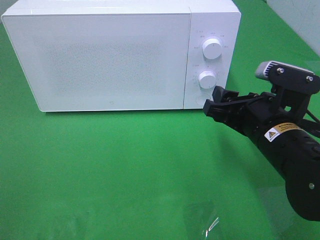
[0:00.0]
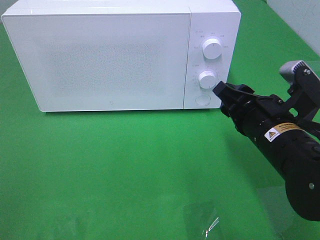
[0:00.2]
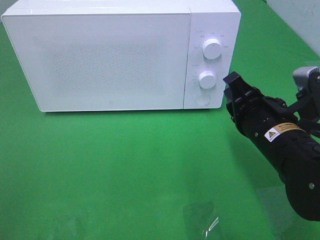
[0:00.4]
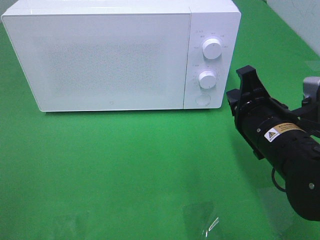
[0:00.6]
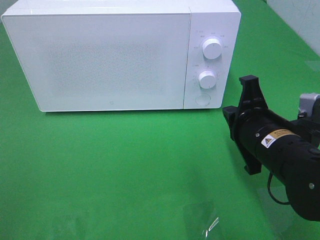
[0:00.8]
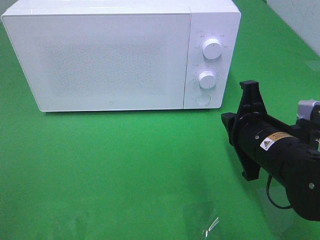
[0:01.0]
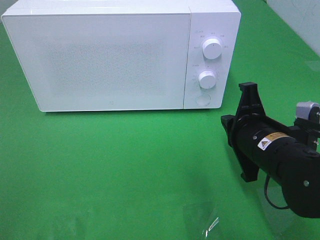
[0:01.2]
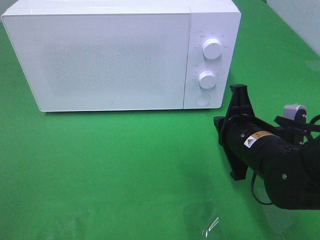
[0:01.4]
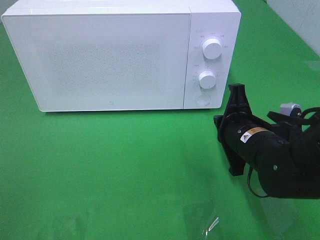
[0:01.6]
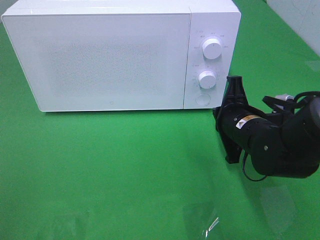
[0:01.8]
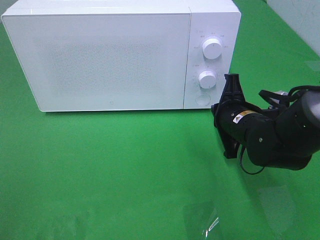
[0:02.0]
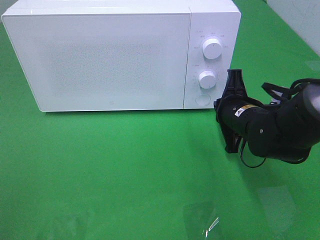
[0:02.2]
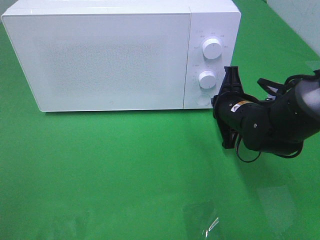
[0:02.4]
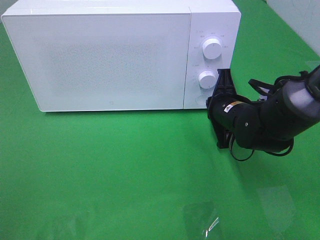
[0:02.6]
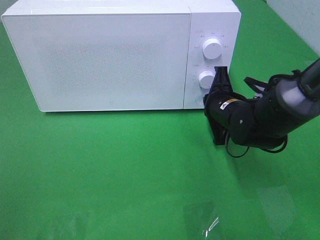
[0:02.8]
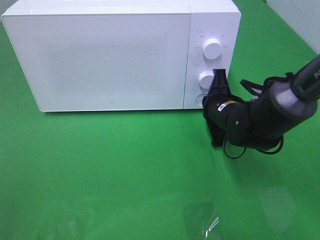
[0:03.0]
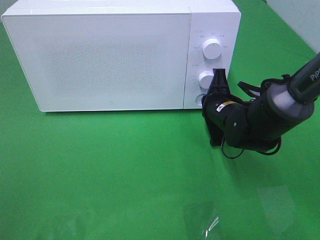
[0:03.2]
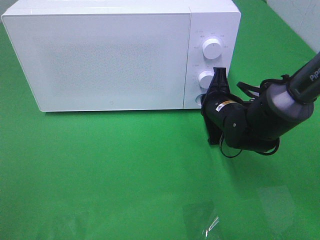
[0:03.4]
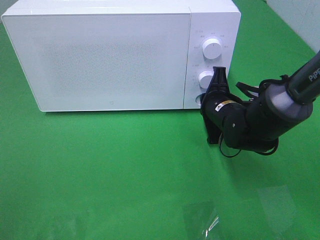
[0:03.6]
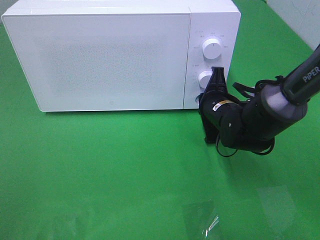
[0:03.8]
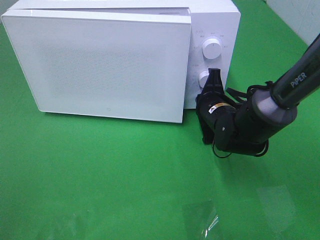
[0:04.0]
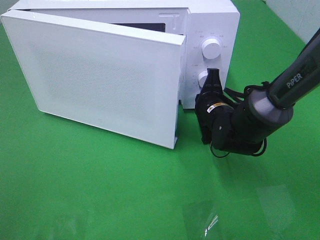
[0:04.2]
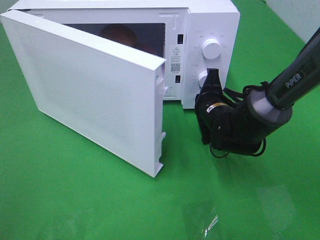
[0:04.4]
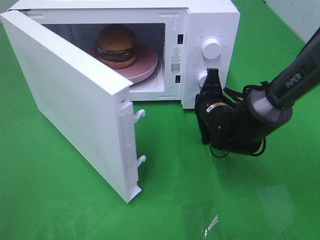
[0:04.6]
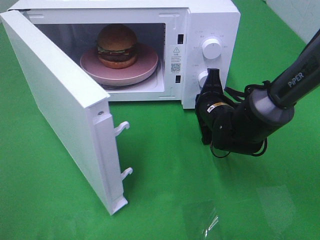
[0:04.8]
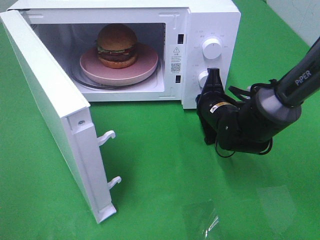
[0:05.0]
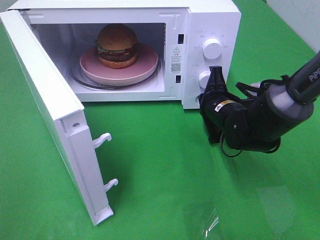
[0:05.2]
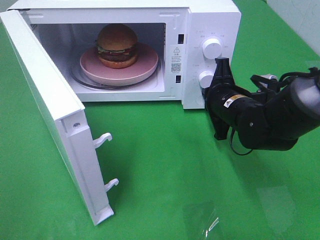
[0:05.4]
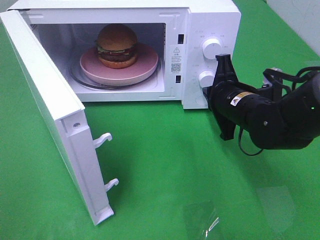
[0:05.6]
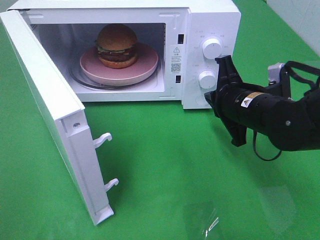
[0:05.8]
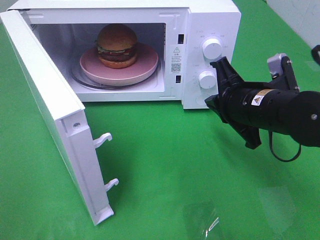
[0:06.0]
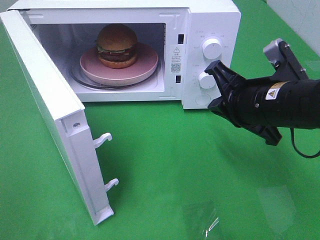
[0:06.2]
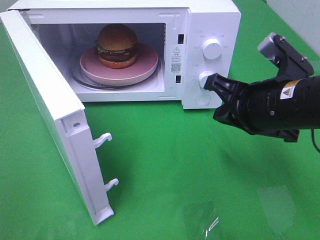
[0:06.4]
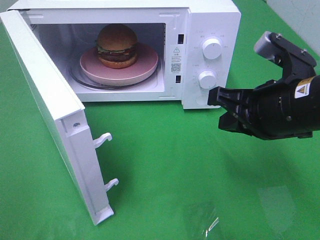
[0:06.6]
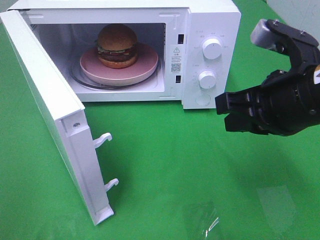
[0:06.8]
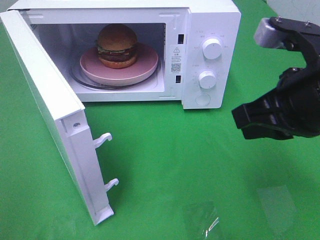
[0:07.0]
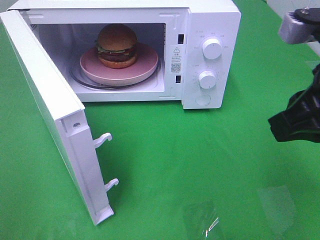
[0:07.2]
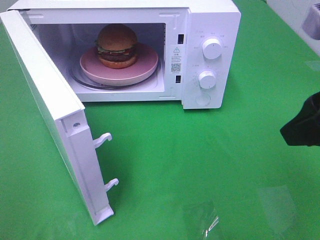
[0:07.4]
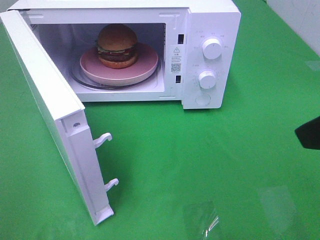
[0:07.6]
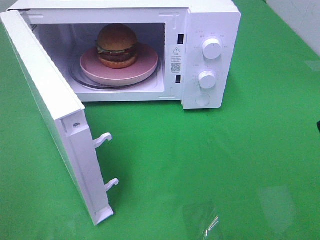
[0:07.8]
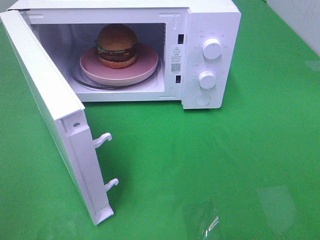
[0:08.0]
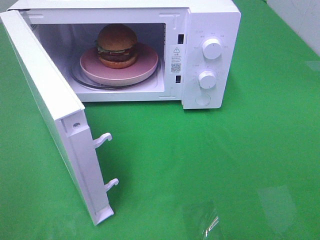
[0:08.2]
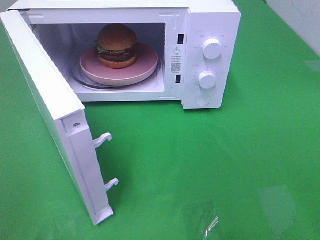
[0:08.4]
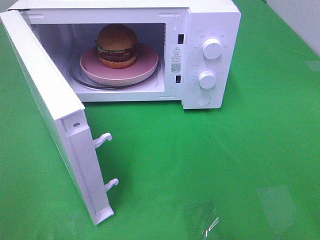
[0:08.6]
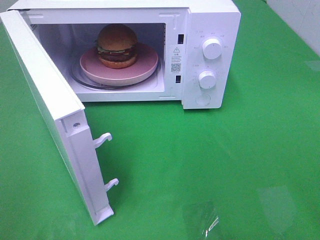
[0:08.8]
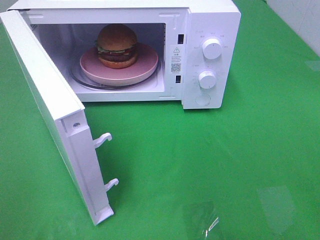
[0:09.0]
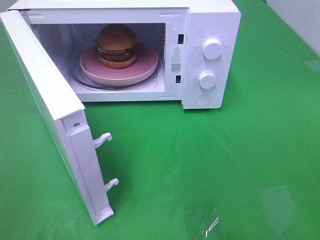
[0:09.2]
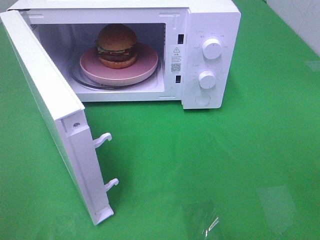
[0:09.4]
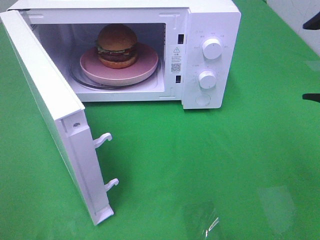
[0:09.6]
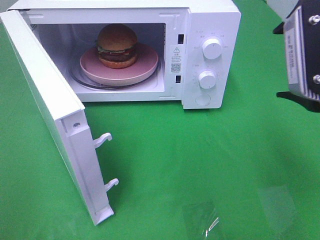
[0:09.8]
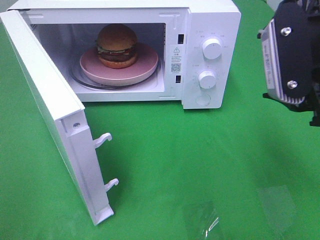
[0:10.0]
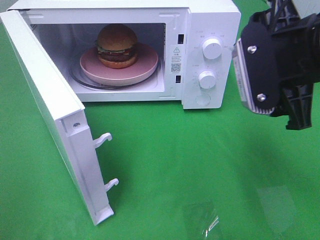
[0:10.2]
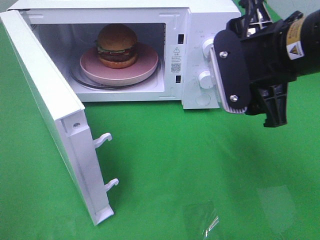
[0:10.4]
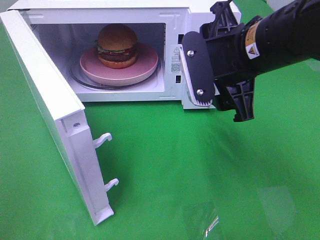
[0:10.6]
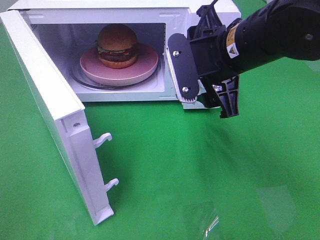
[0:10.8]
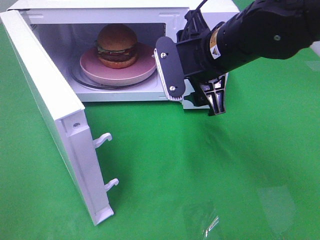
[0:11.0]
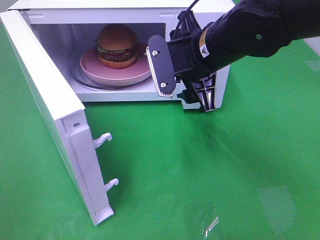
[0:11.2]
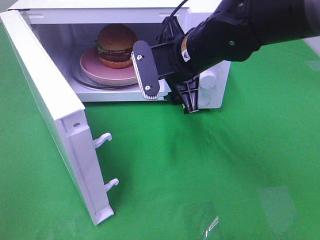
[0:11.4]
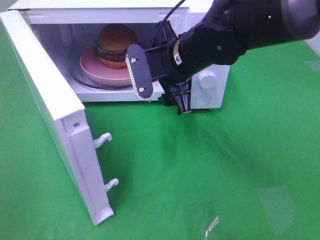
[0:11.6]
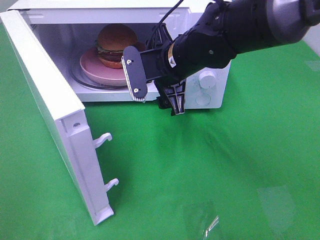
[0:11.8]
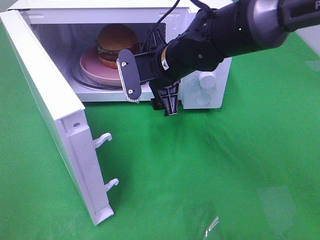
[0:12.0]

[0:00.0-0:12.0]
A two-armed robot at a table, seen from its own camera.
Task of the whole recording: Heat the burger.
Step, 0:00.0 to 0:05.2: Right hand: press the switch.
0:00.0 to 0:01.6: The right gripper changes place by some 5 cm, and closes its fingers.
0:01.6 to 0:03.0: The right gripper goes some 10 cm forward.
0:04.4 to 0:06.0: The right gripper goes some 15 cm upward and backward.
0:06.0 to 0:07.6: The right gripper travels upward, backward and to the right by roughly 25 cm, and opens its fingers.
0:09.0 to 0:10.4: The right gripper is displaced forward, to the left and downward by about 15 cm.
0:10.4 to 0:12.0: The right gripper is displaced forward, to the left and downward by some 20 cm.

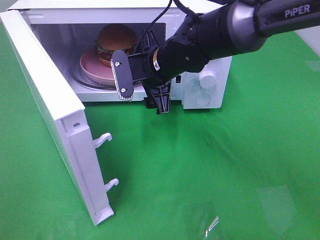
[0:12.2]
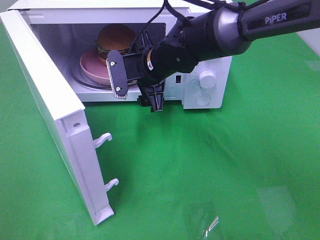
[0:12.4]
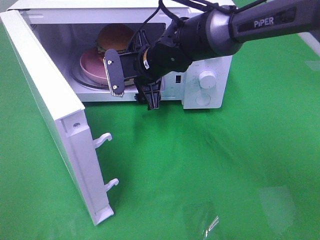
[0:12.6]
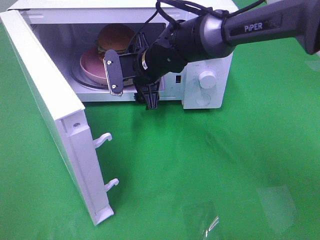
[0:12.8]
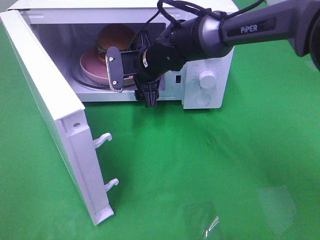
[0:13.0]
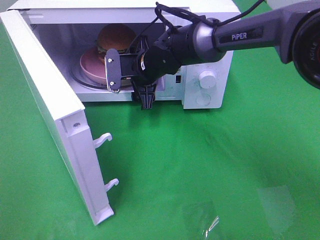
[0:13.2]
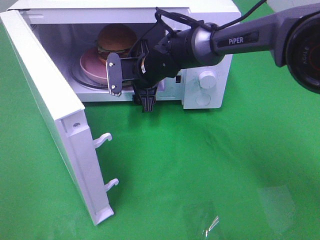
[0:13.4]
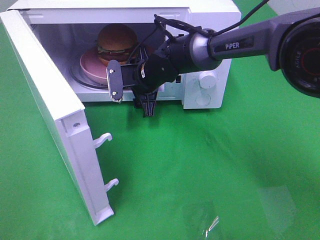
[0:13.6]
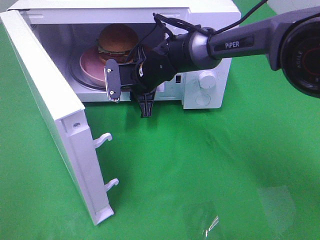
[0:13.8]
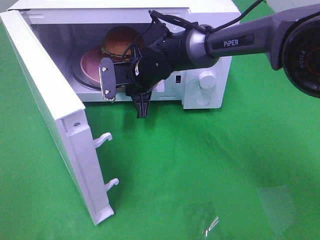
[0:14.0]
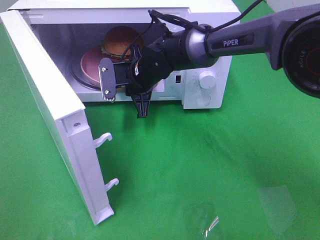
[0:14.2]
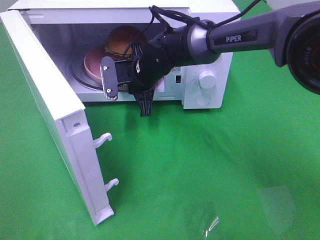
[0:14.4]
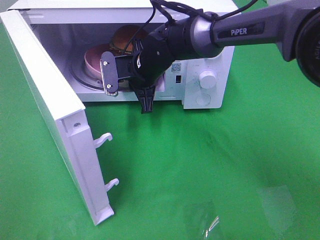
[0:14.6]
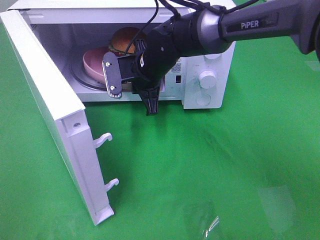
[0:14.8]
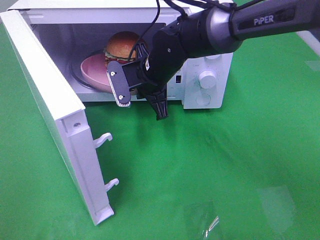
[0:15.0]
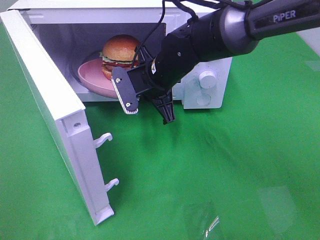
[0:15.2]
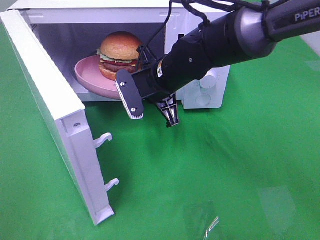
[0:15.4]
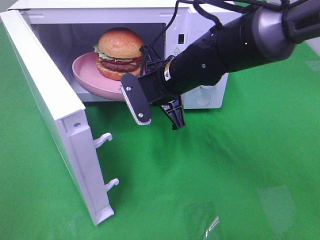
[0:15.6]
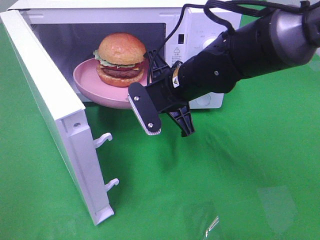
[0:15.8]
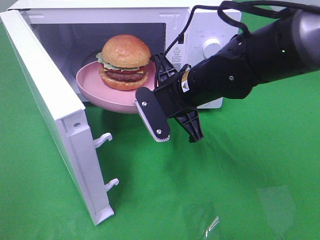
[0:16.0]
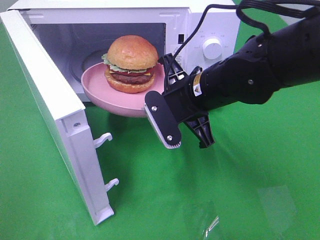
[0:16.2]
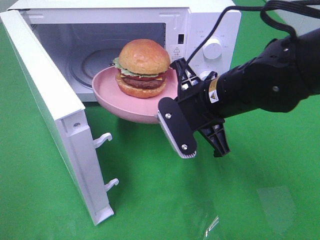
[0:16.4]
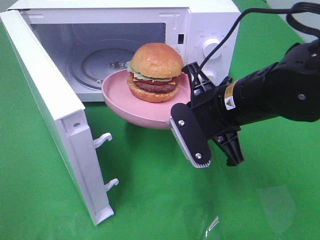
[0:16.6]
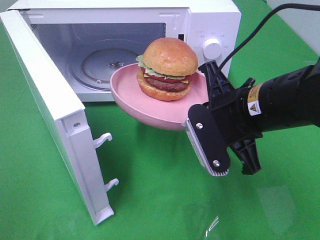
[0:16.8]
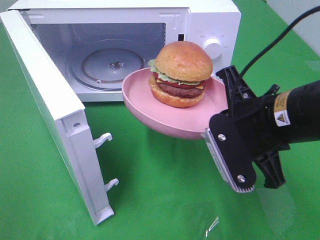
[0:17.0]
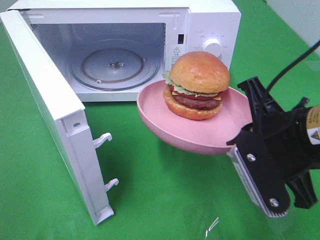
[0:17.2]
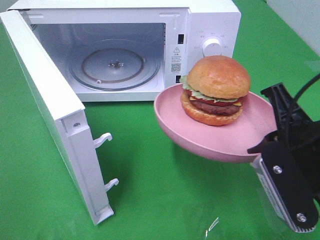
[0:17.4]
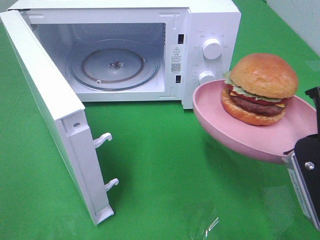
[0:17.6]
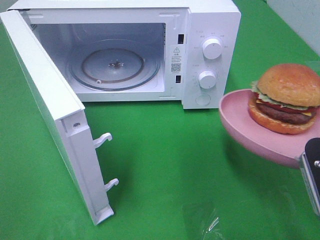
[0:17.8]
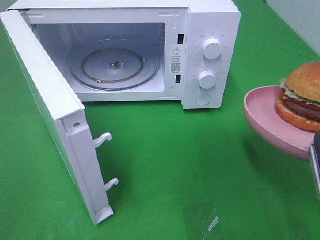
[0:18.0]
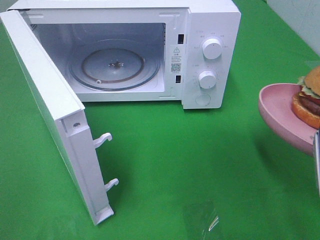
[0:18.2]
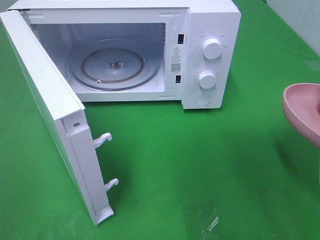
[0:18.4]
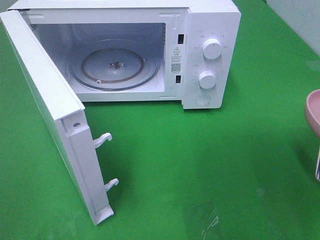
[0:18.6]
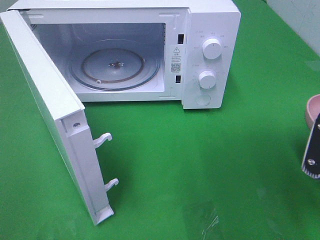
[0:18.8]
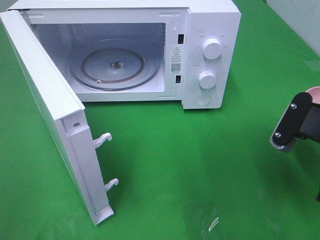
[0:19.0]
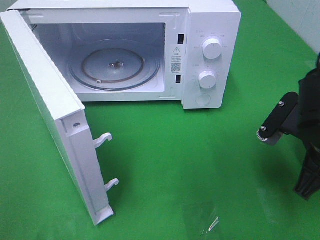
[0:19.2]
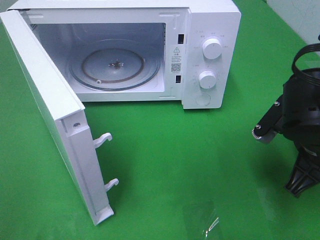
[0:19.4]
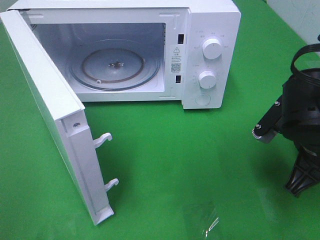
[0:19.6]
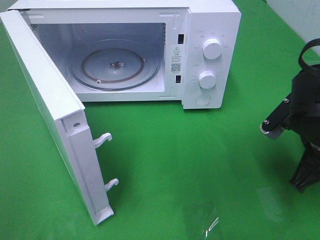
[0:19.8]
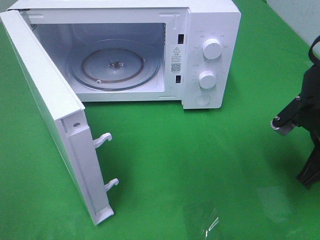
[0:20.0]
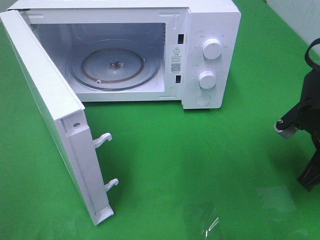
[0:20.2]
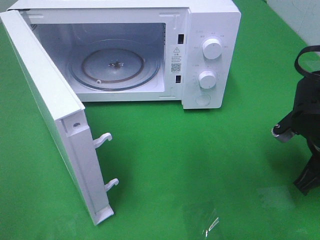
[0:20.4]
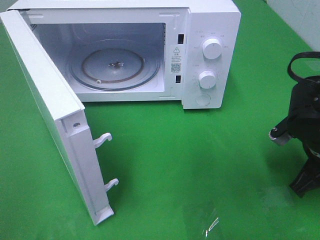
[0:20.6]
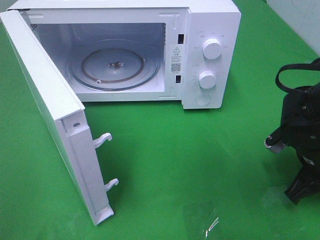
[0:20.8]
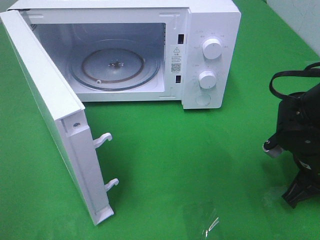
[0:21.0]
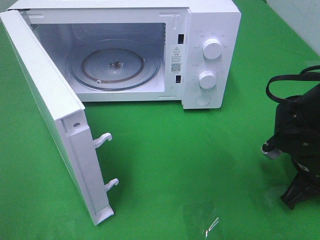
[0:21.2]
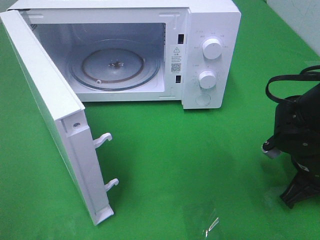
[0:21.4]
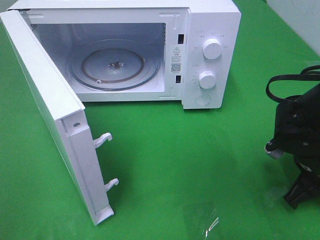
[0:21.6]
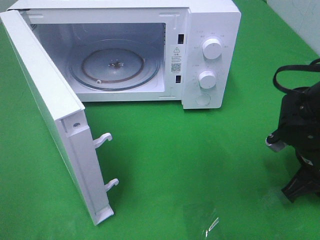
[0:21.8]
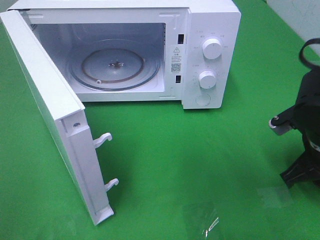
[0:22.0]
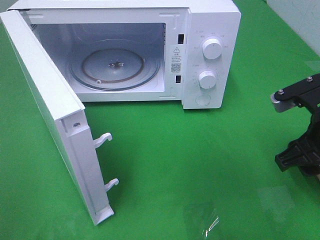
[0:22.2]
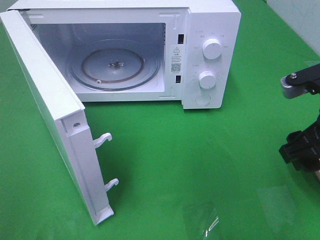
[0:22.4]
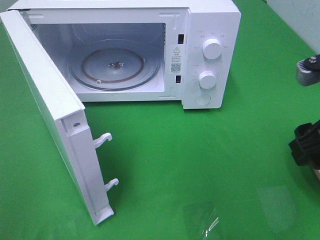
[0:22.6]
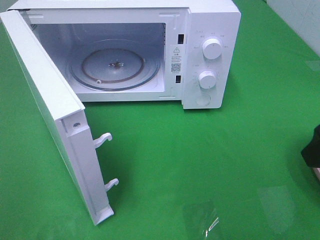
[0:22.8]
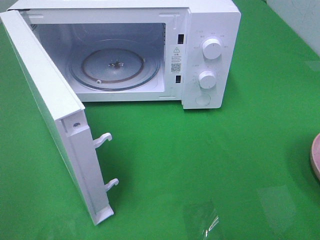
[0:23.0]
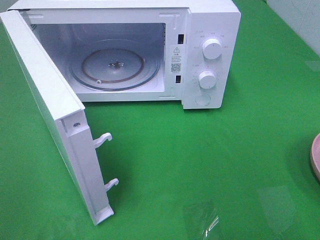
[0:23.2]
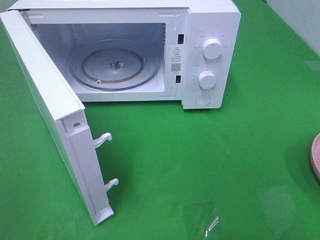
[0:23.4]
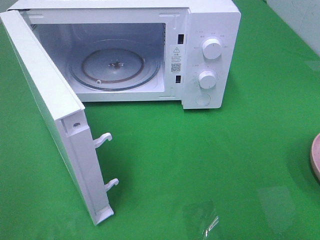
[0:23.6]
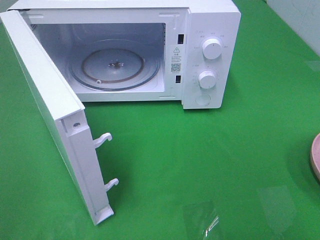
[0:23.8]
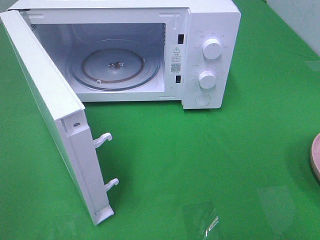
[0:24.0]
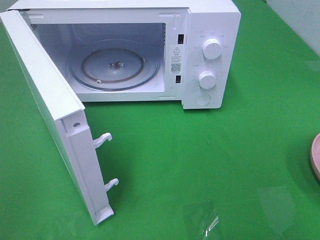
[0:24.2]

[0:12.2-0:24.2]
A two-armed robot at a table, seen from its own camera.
Task of the whole recording: Heat the burger.
Step, 0:12.2 to 0:14.6: Right hand: grab the plate with the hamburger.
Step, 0:14.8 to 0:22.2: Right hand: place the plate on the table.
0:12.2 to 0:13.8: The right gripper goes about 10 cm downward and forward, and closes.
0:13.8 to 0:15.2: The right gripper heads backward, covering approximately 5 cm, and closes.
0:15.2 to 0:16.6: The right gripper travels backward and to the right by some 15 cm.
0:16.6 to 0:18.2: The right gripper moves to the right and backward, about 15 cm.
0:18.2 to 0:19.8: The right gripper heads forward and downward, covering some 10 cm.
0:19.8 to 0:21.2: The right gripper travels downward by some 5 cm.
0:21.2 to 0:22.6: The right gripper heads upward, covering about 15 cm, and opens its fingers.
0:22.6 to 0:24.2: The right gripper is displaced backward by some 15 cm.
